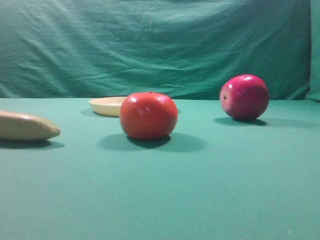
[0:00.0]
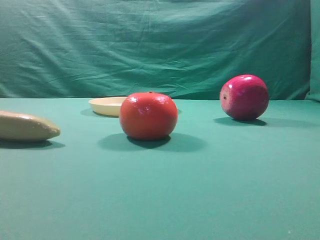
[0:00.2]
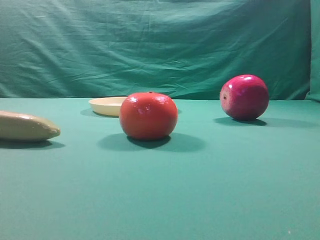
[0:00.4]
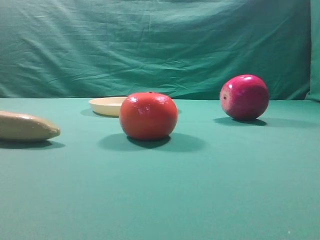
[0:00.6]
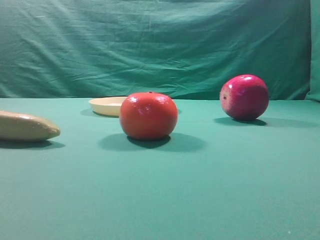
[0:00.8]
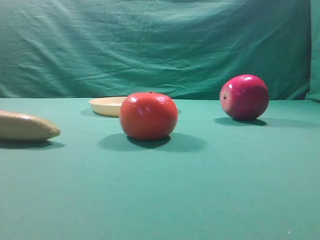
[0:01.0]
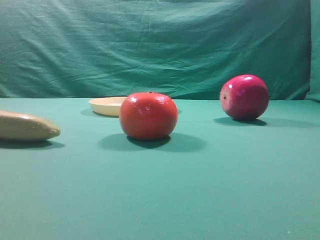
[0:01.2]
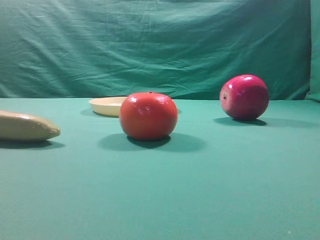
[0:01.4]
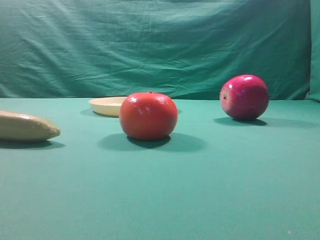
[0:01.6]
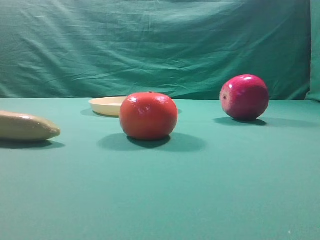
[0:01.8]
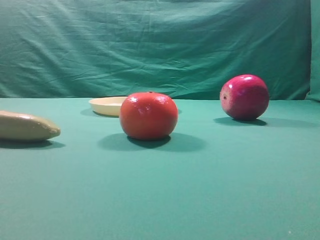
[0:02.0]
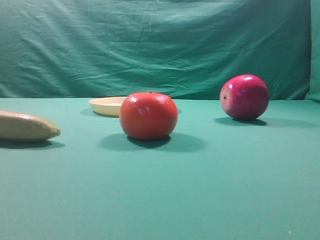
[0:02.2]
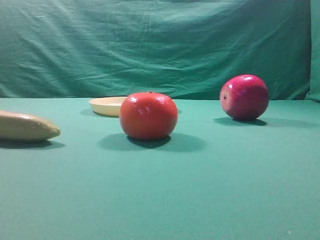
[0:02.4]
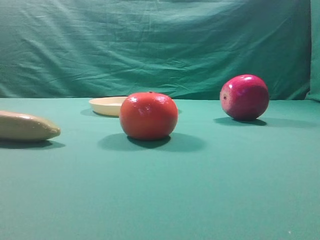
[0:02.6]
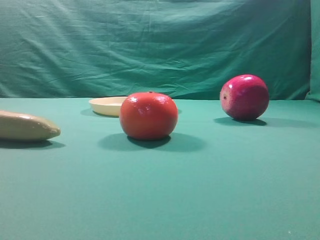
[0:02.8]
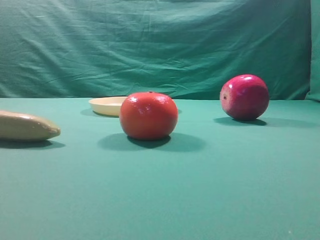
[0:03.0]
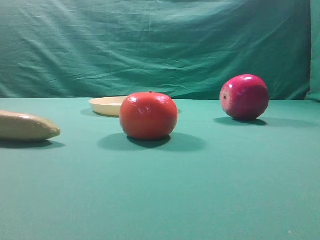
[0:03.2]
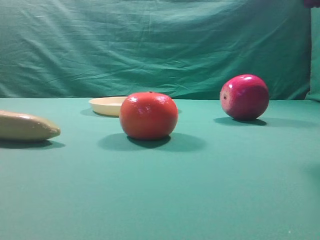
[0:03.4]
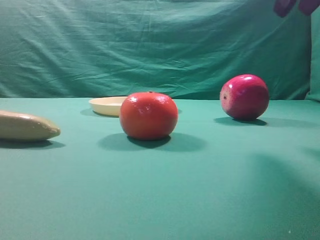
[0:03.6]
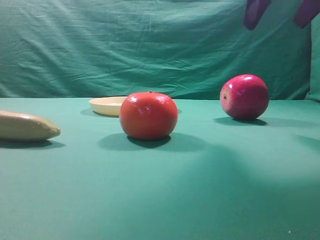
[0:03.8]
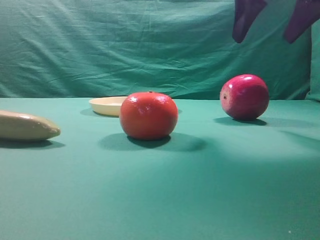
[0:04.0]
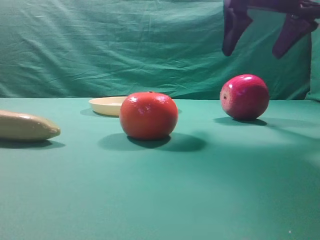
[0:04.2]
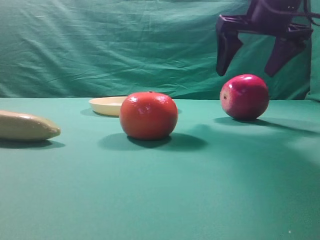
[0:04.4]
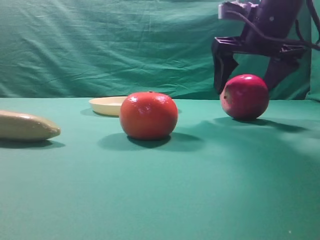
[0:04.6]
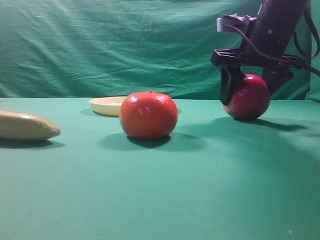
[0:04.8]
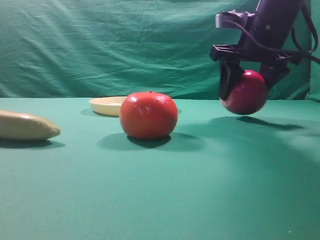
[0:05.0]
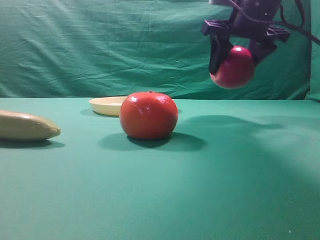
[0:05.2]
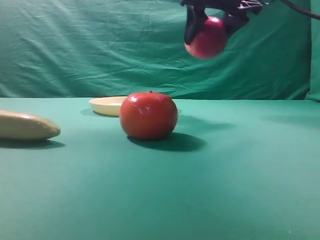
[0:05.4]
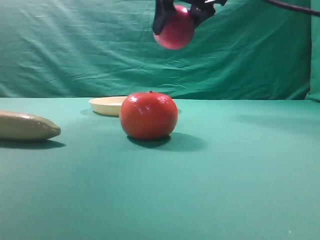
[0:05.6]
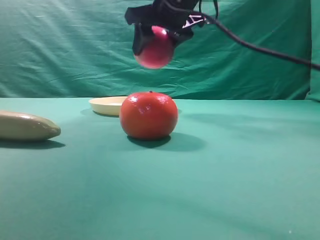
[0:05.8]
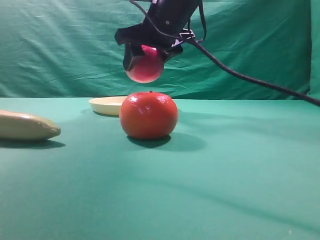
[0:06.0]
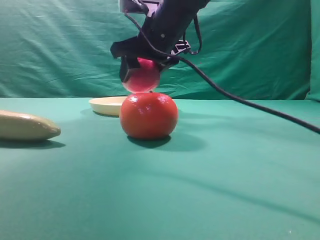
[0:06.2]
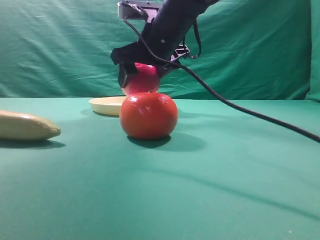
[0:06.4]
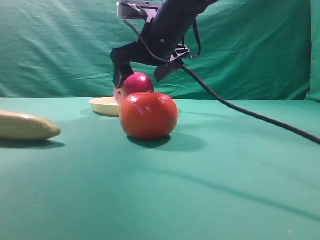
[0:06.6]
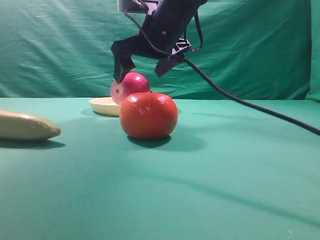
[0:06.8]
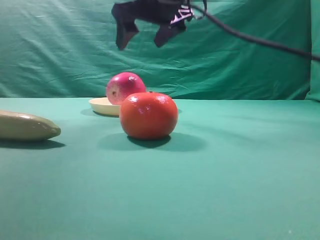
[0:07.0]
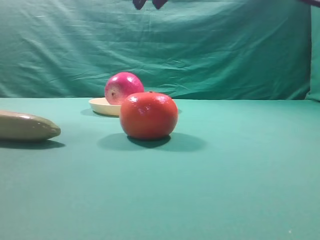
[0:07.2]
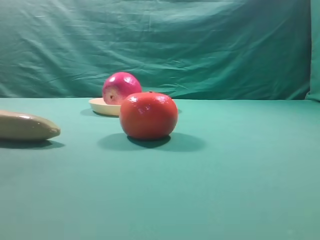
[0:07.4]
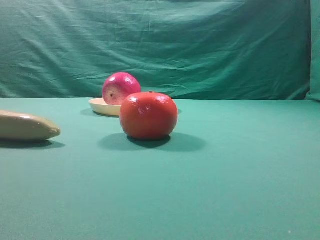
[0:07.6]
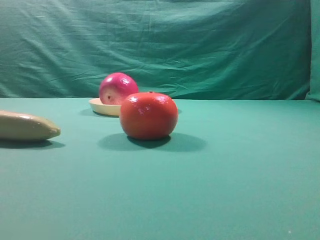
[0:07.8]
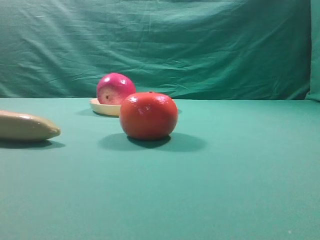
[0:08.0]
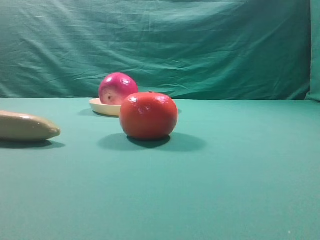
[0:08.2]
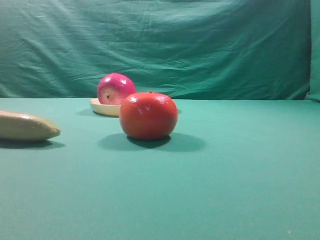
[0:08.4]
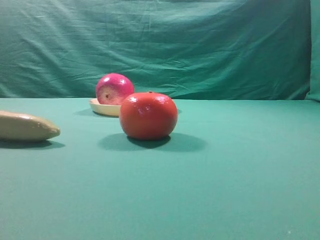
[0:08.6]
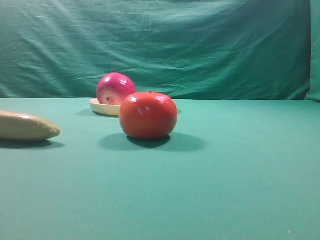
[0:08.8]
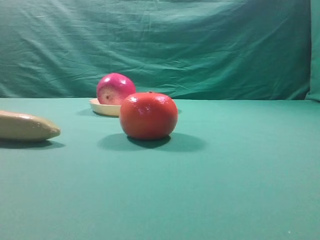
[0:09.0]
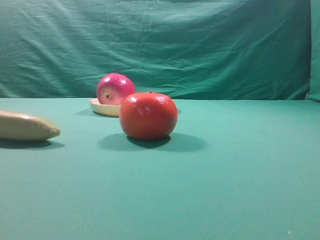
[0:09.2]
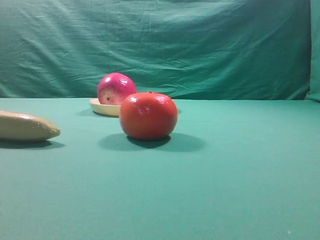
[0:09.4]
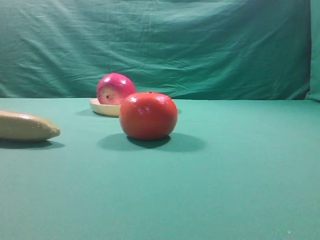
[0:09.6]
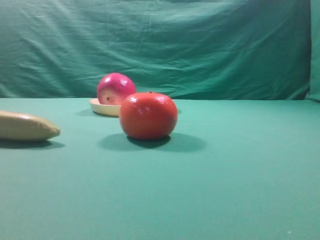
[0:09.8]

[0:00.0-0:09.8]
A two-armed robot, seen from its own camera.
Task of the whole recording: grasp the apple and place it into the yellow plate.
Step, 0:00.0 to 0:05.0: Grasp the fruit that can keep the doctor away.
Step, 0:05.2 to 0:06.8: Place the picked object into the yellow plate.

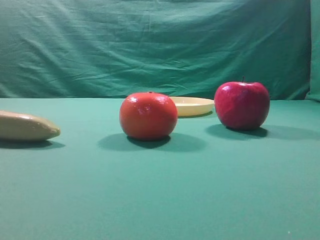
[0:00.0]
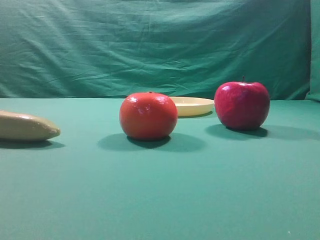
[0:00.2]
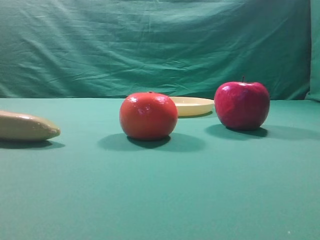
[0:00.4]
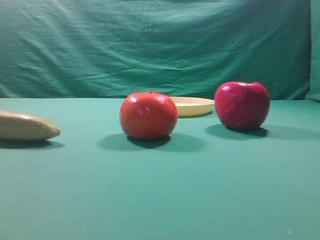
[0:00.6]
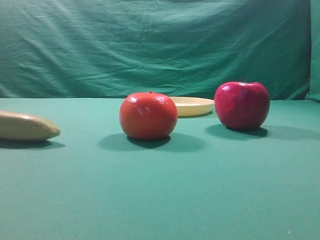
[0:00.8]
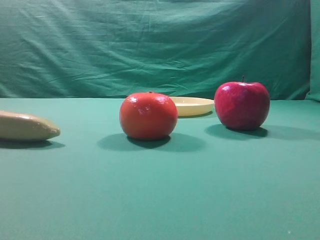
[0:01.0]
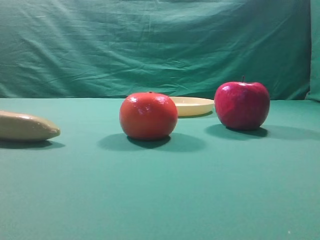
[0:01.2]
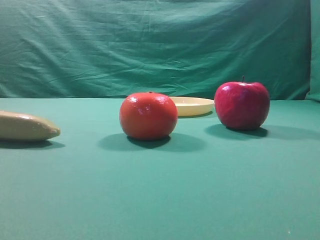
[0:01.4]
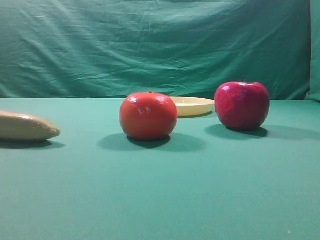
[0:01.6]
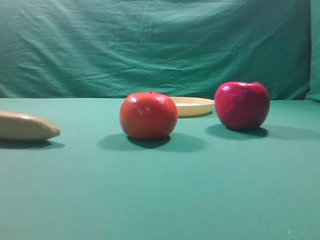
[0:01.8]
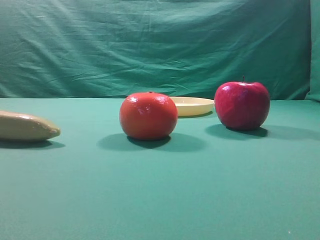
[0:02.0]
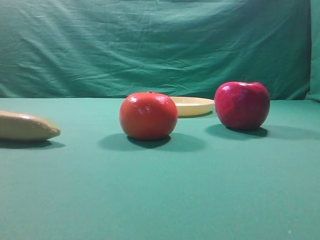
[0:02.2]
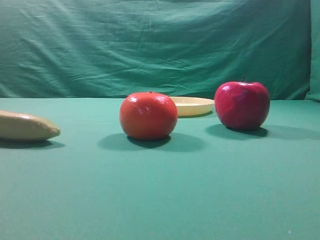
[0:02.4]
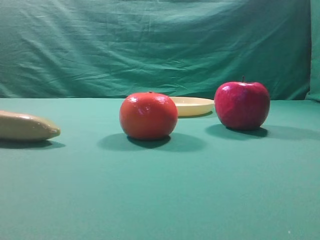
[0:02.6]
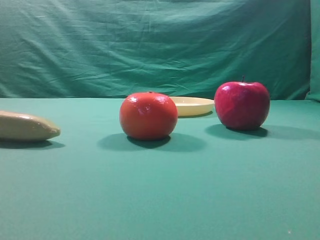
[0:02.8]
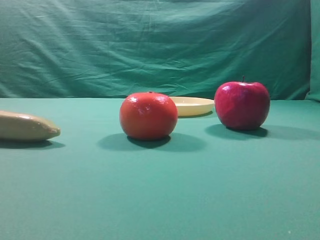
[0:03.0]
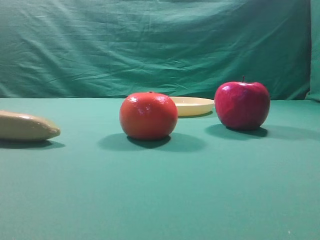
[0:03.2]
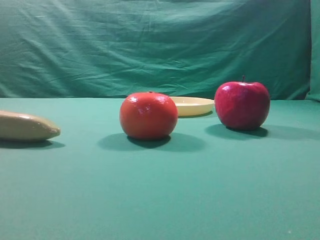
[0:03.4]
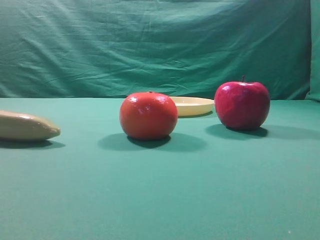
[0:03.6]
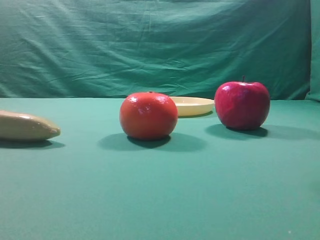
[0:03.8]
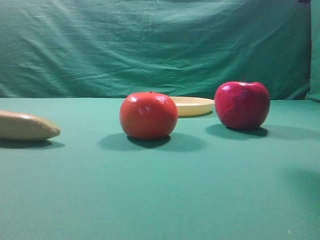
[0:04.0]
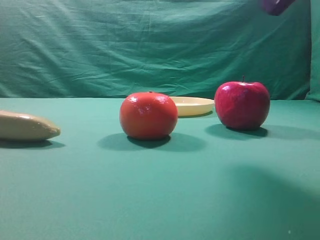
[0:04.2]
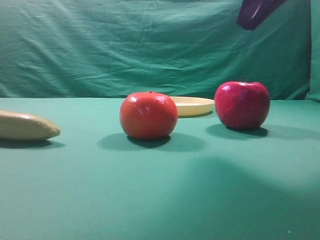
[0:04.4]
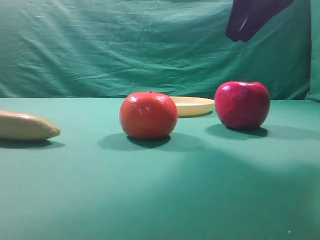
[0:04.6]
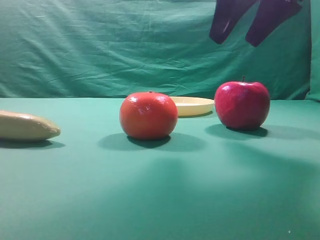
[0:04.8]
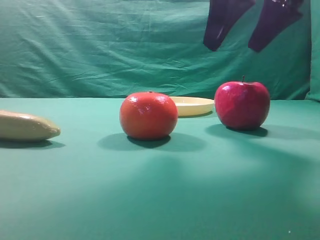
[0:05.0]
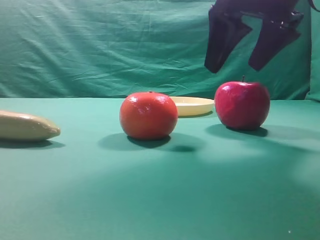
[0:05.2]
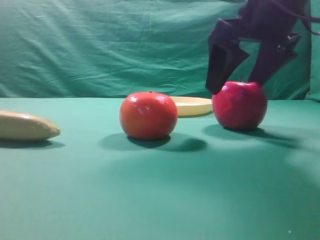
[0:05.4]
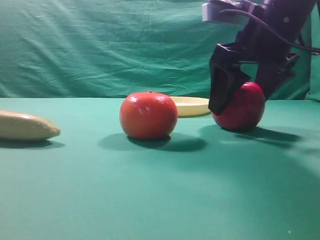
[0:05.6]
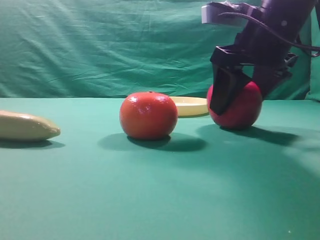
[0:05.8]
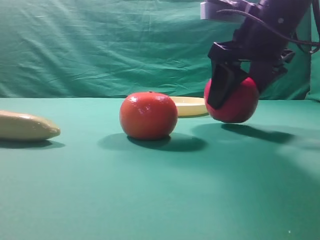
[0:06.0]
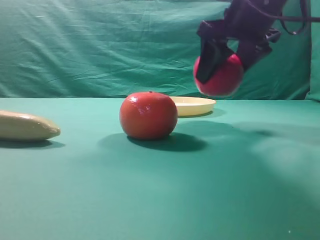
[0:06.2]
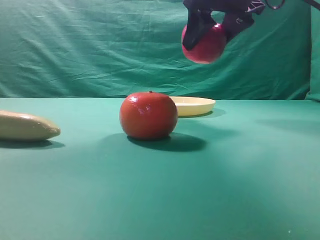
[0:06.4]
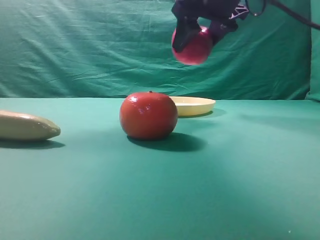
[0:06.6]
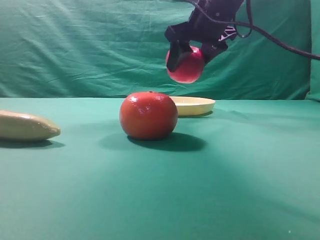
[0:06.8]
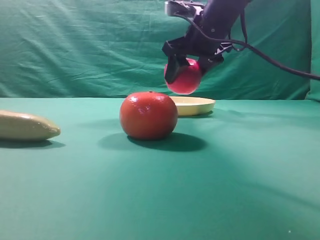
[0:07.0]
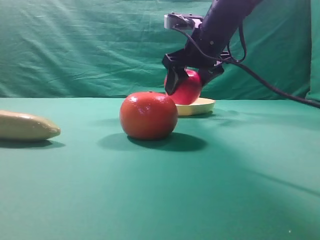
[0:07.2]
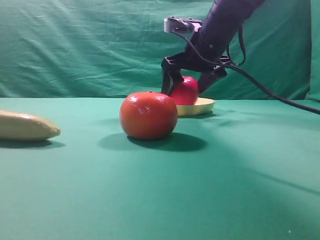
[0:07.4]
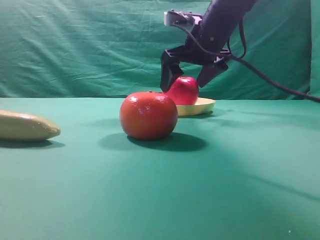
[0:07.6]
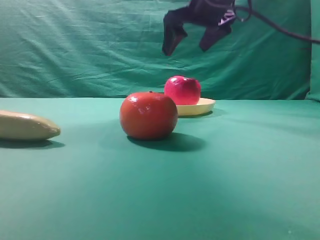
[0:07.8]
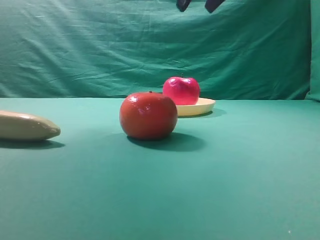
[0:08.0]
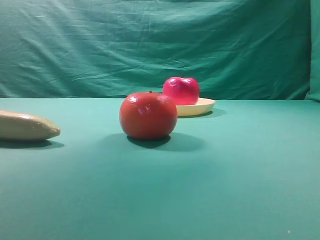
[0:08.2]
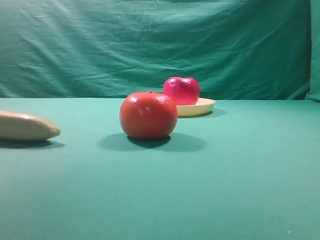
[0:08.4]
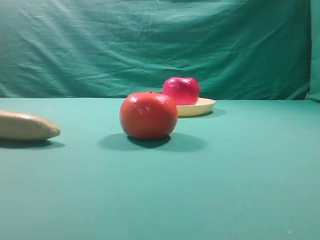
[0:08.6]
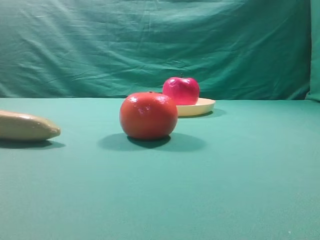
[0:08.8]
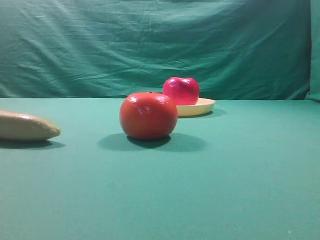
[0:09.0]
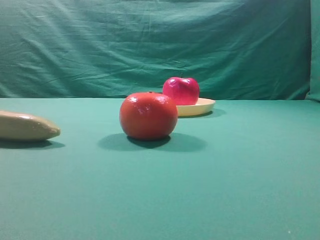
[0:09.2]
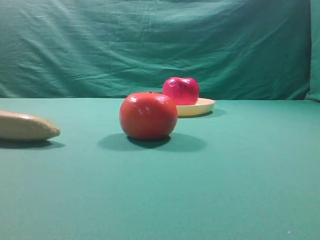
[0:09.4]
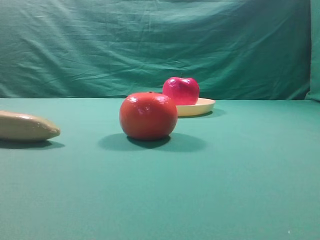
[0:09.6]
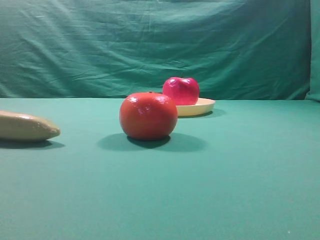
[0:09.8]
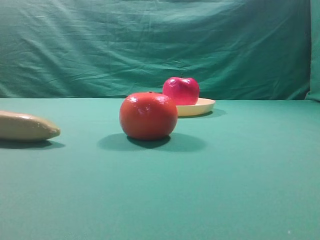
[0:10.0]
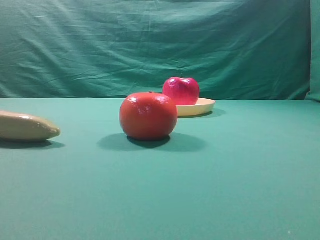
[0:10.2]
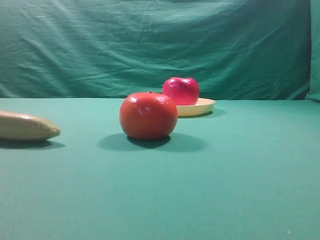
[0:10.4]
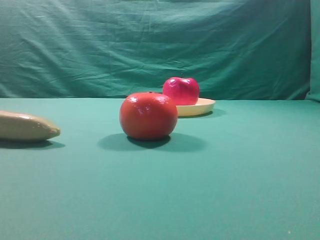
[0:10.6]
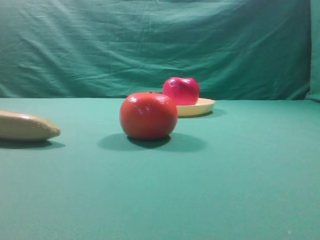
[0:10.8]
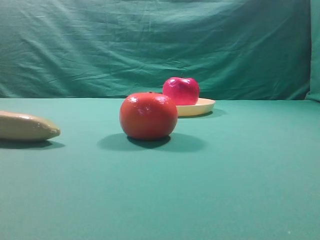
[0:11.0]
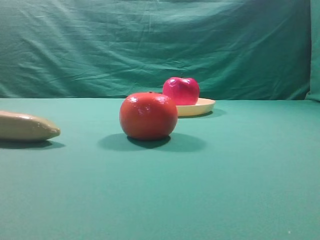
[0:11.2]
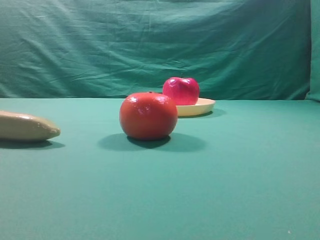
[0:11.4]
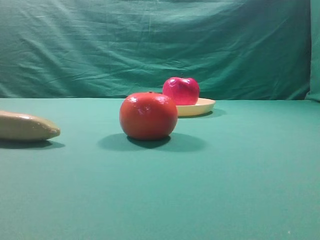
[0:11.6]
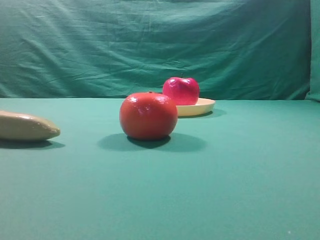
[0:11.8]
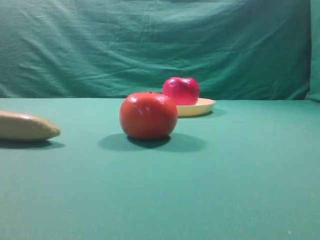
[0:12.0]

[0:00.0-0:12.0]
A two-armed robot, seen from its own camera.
Task of the whole recording: grasp the apple and place it into the yellow plate.
Step, 0:00.0 to 0:06.0: Grasp the fruit that can keep the doctor away.
Step, 0:06.2 to 0:07.6: Place the picked object into the yellow plate.

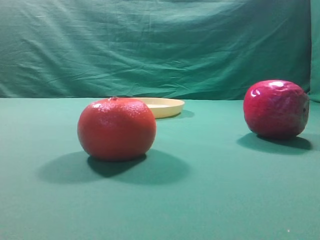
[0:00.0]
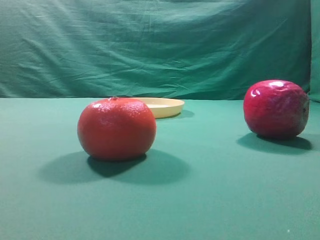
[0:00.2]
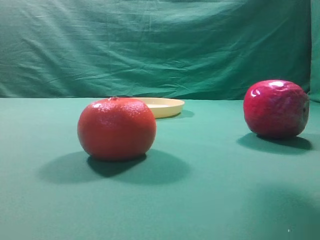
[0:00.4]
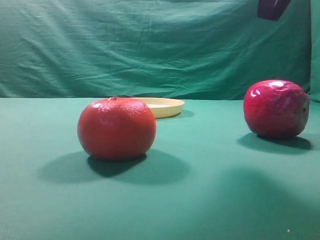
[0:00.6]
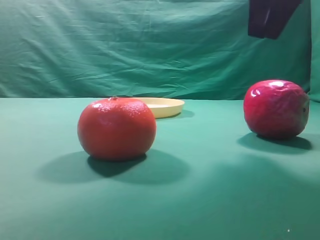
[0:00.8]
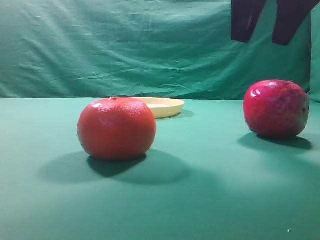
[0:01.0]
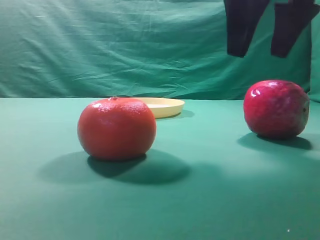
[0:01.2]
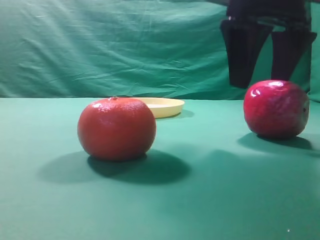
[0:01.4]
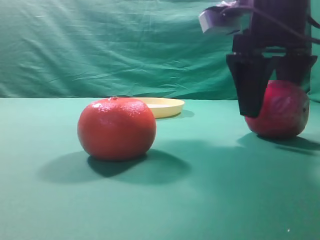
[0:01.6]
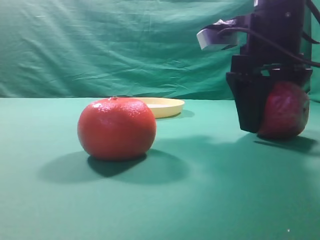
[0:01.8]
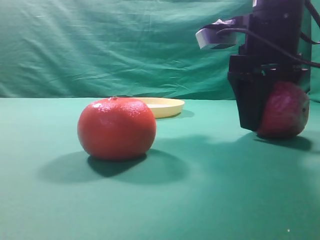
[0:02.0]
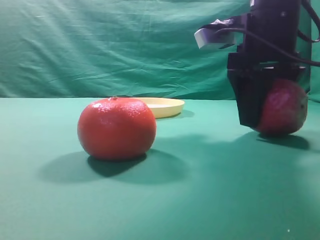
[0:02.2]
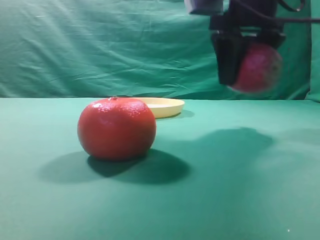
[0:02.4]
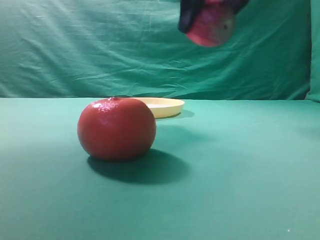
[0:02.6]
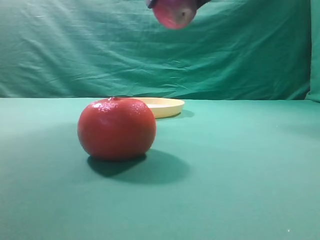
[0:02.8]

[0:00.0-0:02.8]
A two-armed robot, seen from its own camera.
Task of the whole recording: grasp the apple and place it into the yellow plate.
Step, 0:00.0 to 0:02.2: Grasp the fruit that can keep the doctor away.
